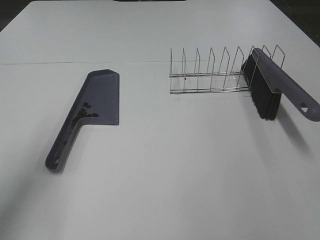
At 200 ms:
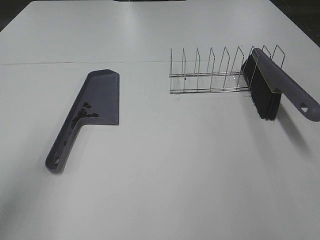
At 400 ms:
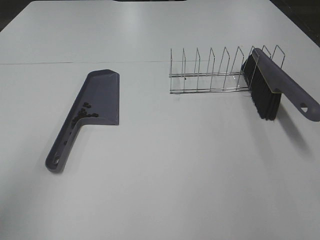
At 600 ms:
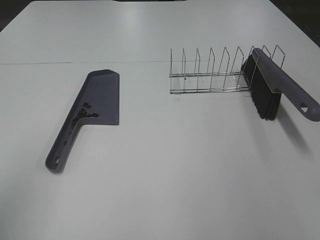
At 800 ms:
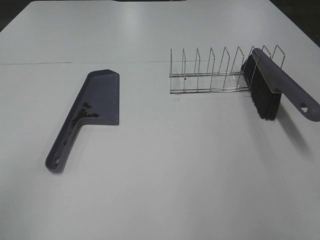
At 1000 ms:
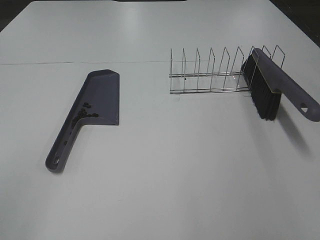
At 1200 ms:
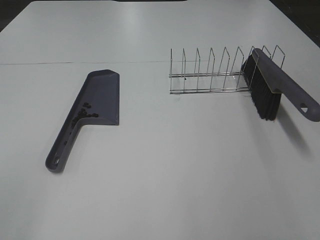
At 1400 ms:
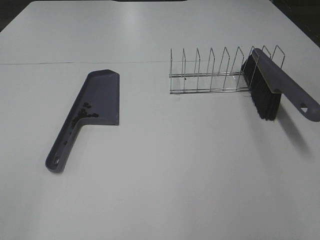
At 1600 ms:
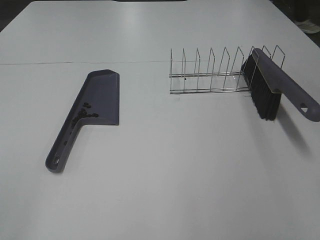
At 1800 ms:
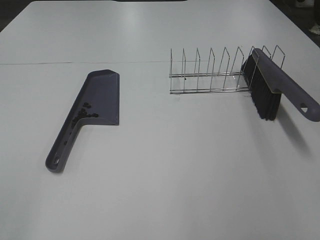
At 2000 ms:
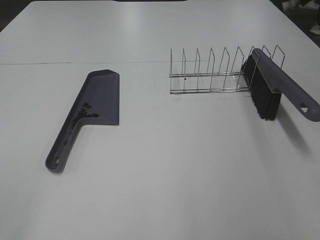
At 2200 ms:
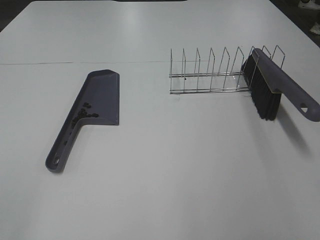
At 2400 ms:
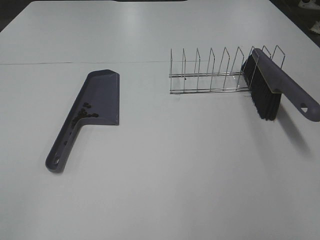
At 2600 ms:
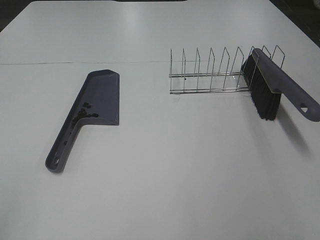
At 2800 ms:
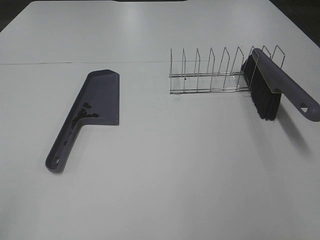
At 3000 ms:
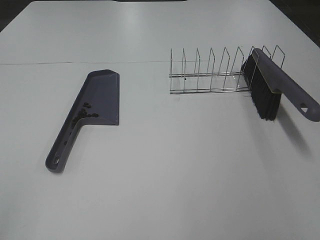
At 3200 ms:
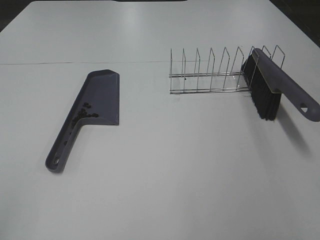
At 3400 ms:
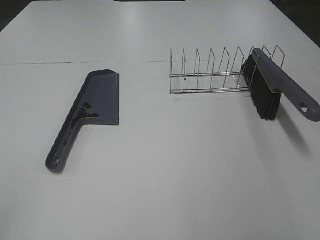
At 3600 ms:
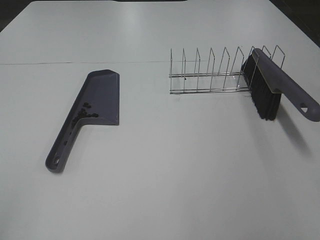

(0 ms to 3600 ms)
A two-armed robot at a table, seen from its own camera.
Task of the whole recording: Sweep Coffee Bean.
0 ms - 1800 ms: The left gripper heads backward, covering about 20 cm.
